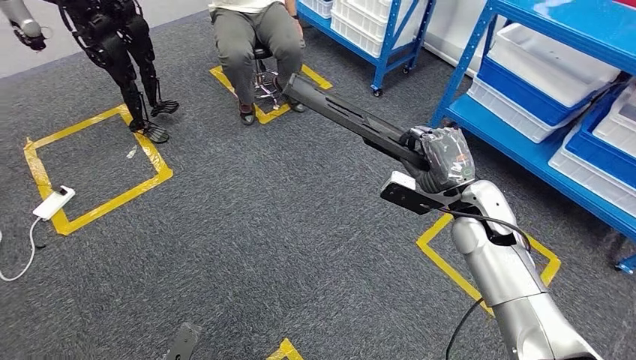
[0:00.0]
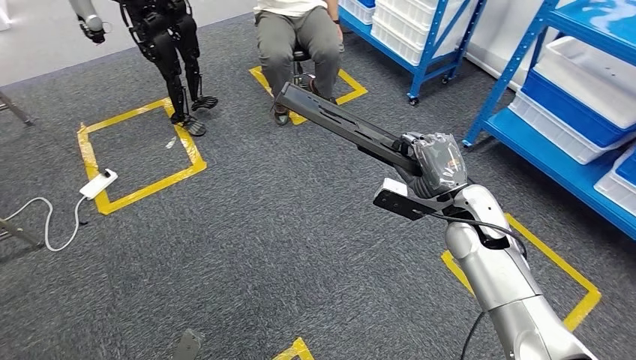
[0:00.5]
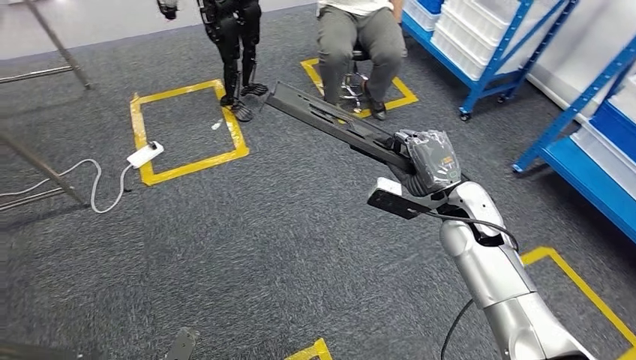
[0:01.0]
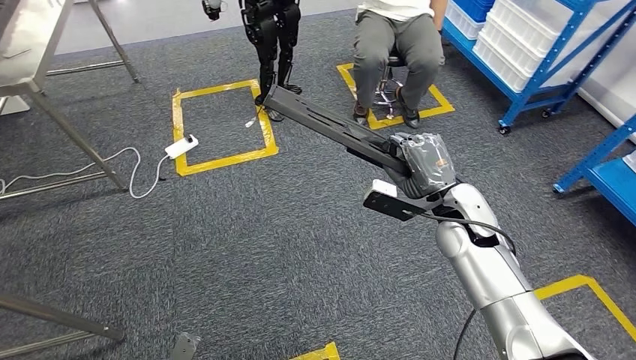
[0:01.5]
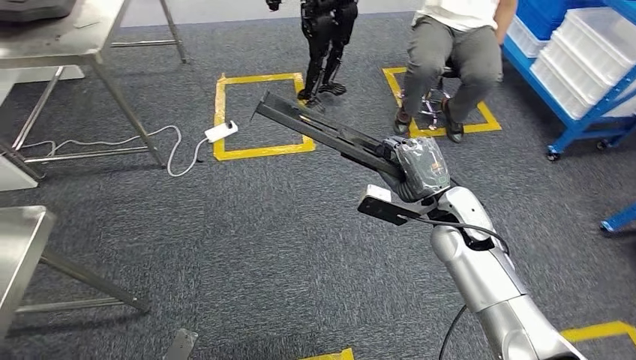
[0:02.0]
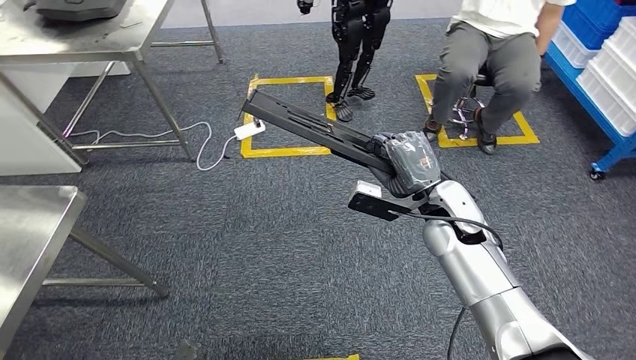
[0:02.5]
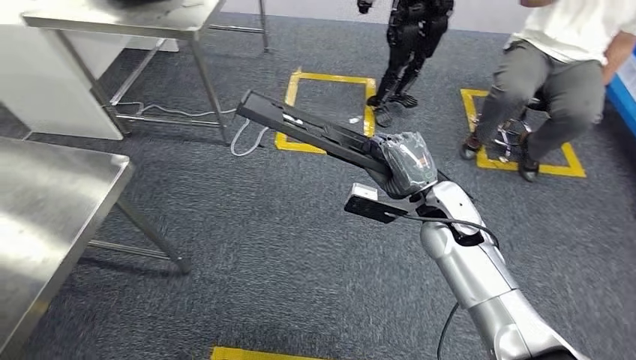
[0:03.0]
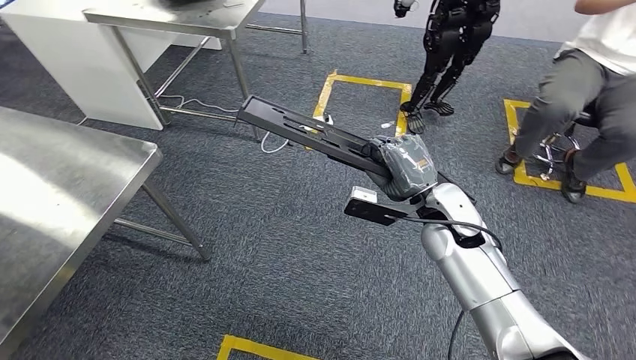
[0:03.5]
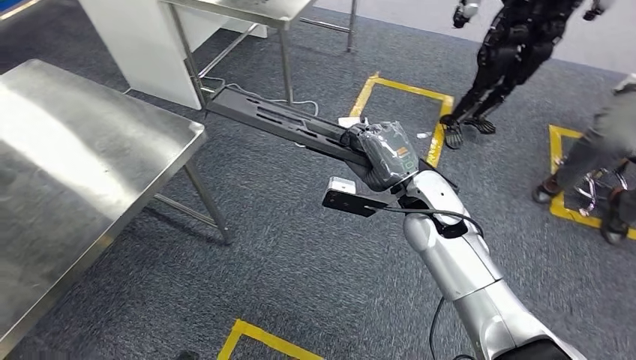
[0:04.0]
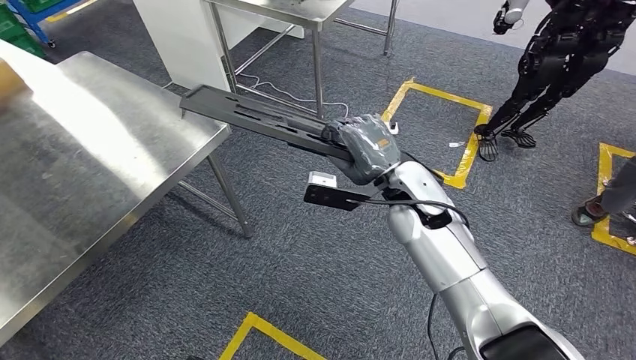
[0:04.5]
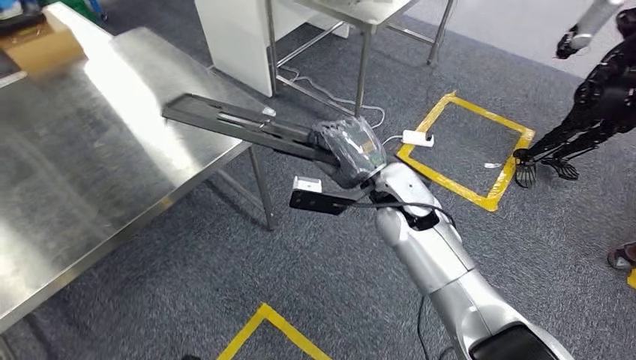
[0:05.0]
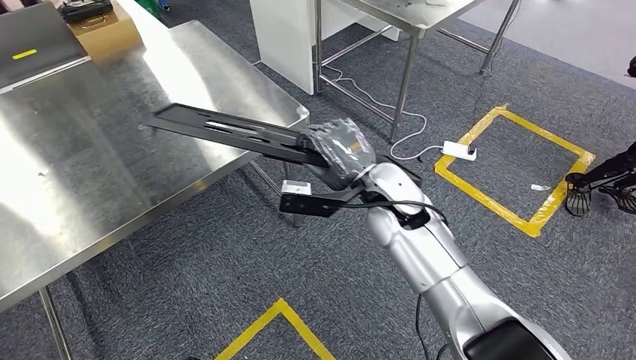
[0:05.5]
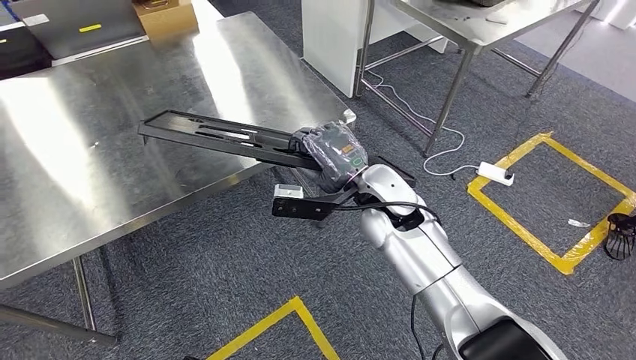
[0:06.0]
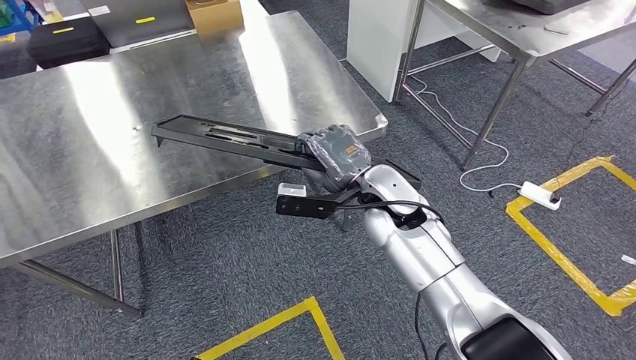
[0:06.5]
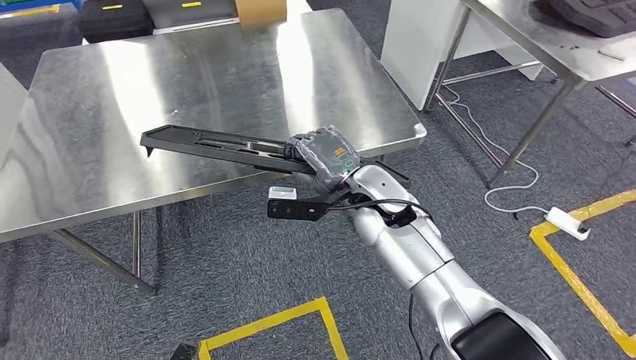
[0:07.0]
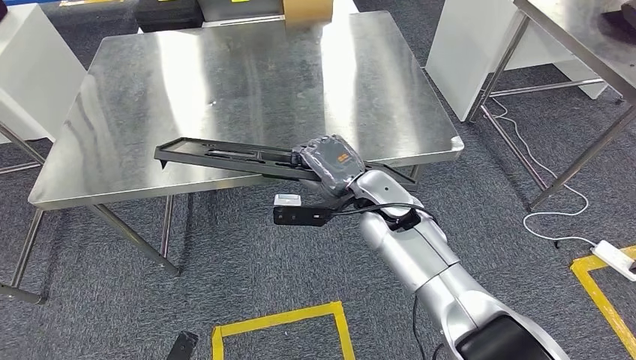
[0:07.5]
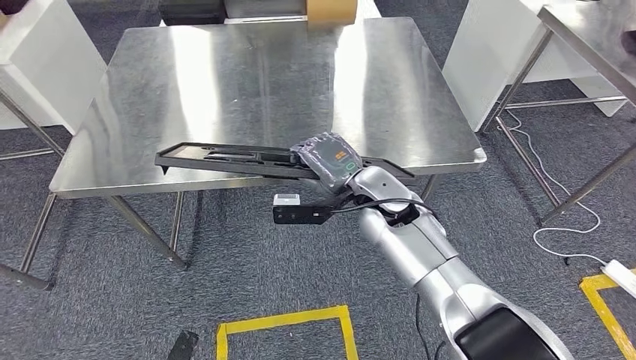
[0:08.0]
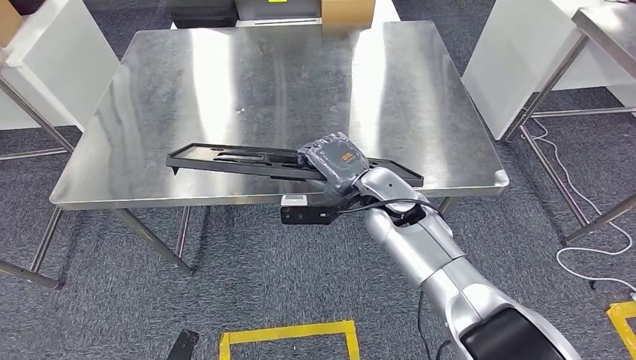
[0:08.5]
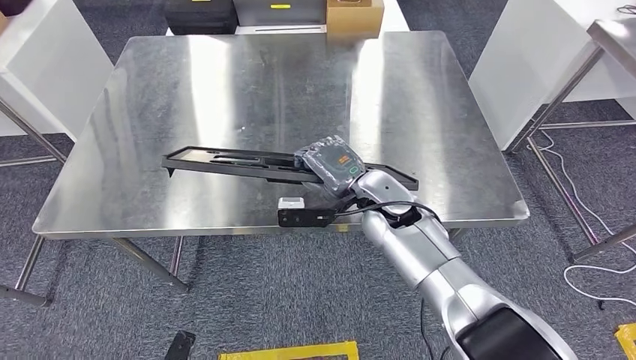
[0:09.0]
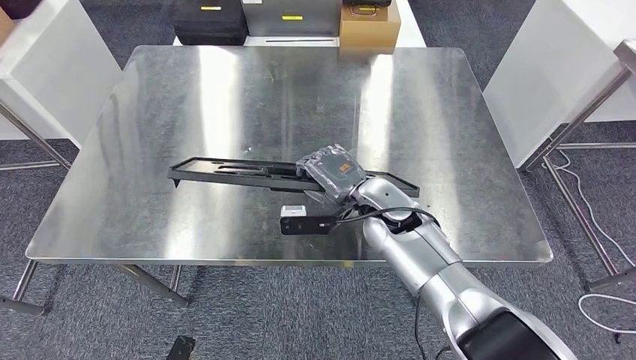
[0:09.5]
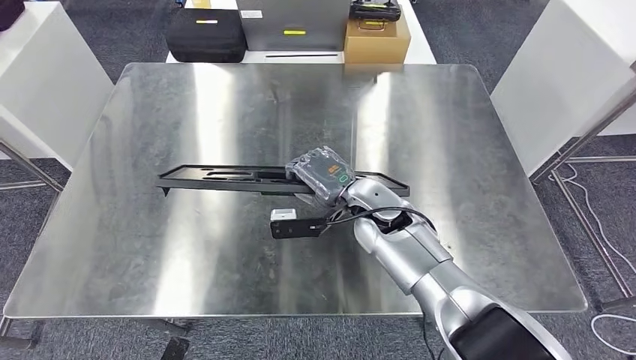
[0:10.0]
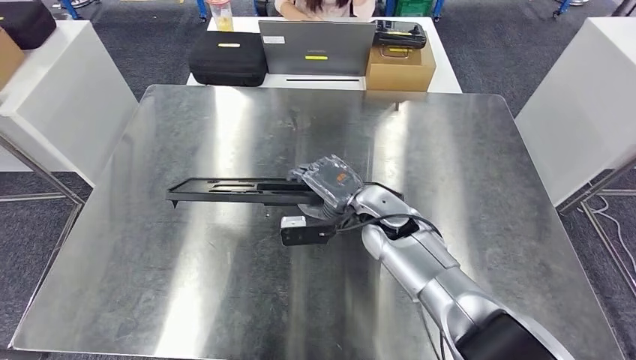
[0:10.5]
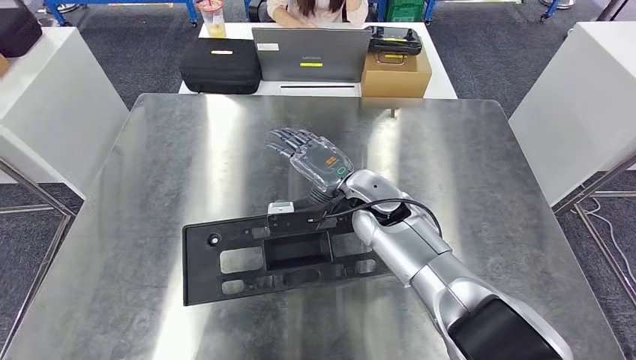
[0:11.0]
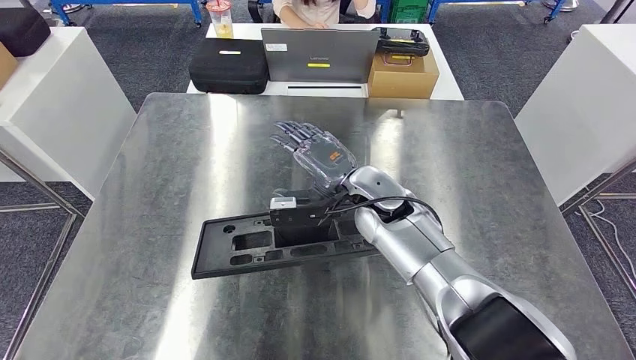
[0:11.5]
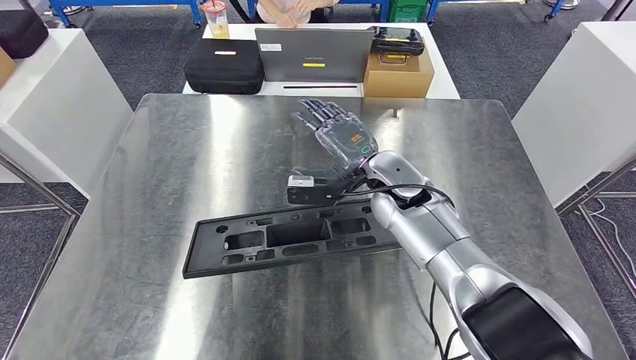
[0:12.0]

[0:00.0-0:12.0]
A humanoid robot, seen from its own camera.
Step, 0:00.0 to 0:05.0: Move the large parts to the workbench.
Step, 0:05.5 to 0:11.5: Insert the large parts into the corresponding slots on the workbench.

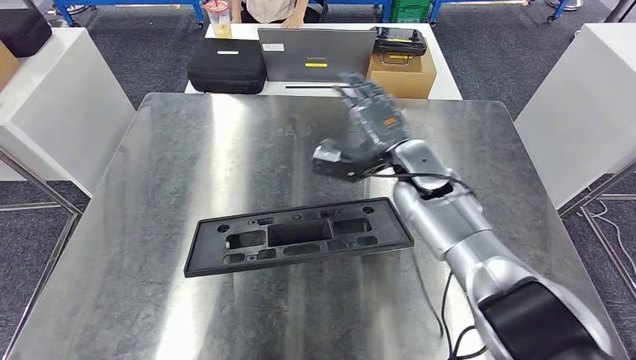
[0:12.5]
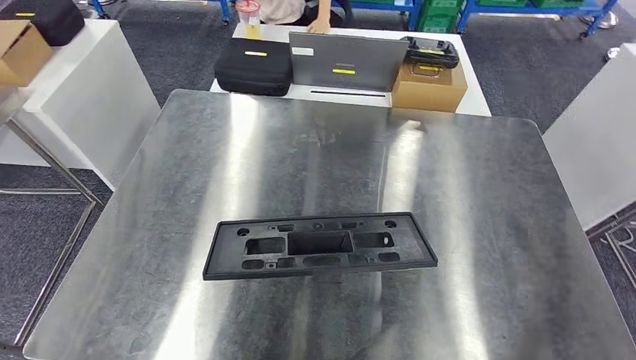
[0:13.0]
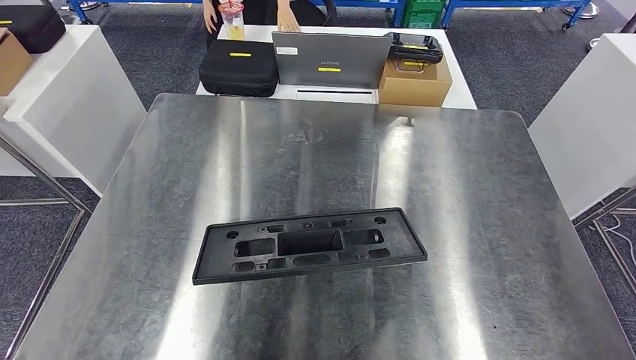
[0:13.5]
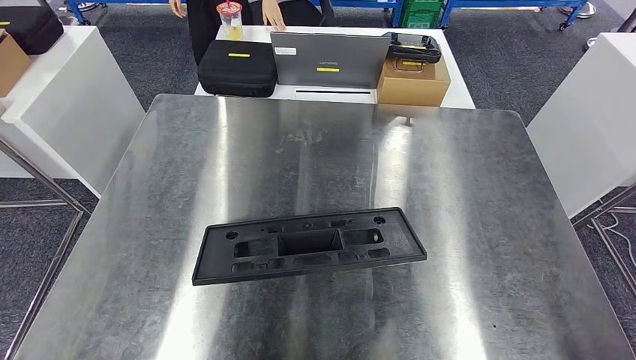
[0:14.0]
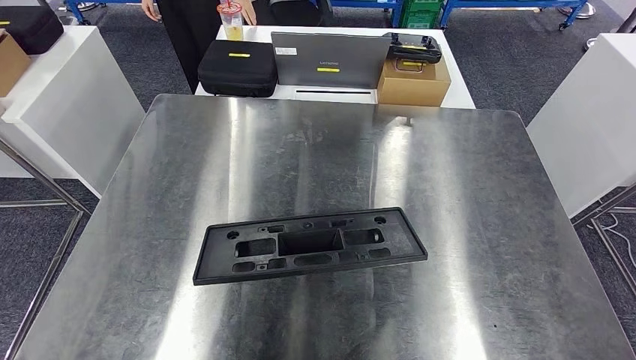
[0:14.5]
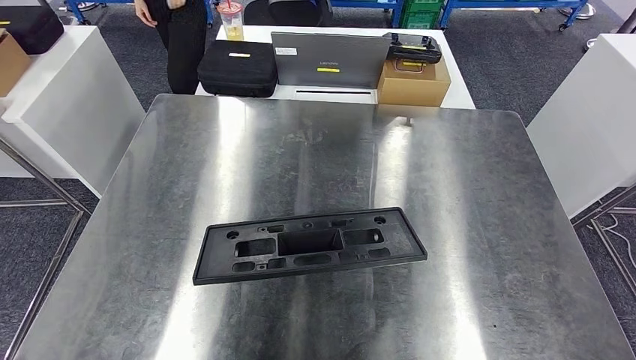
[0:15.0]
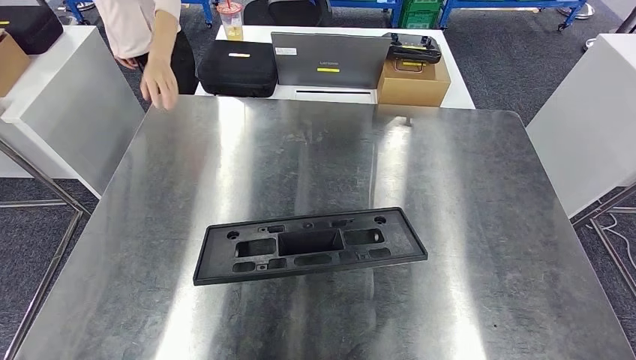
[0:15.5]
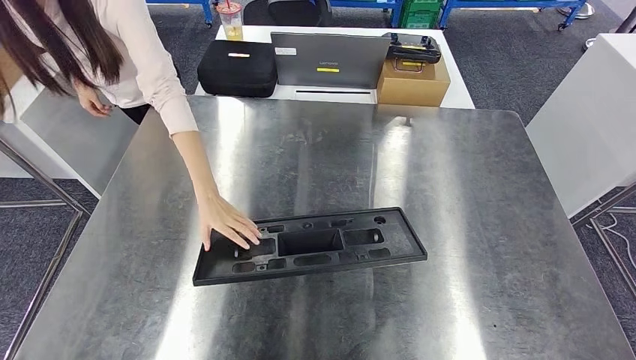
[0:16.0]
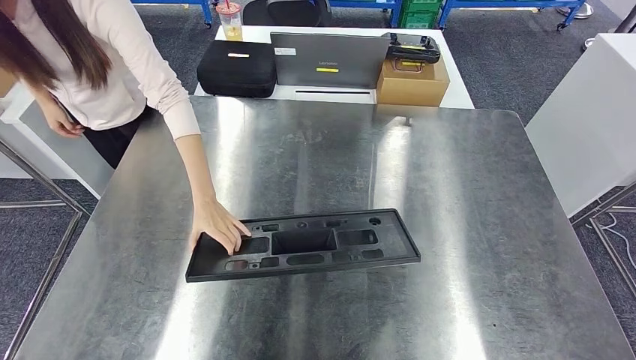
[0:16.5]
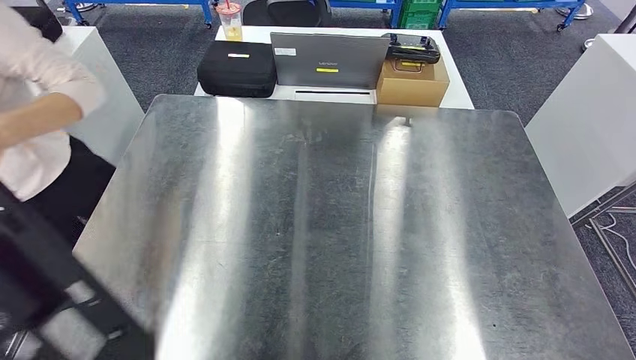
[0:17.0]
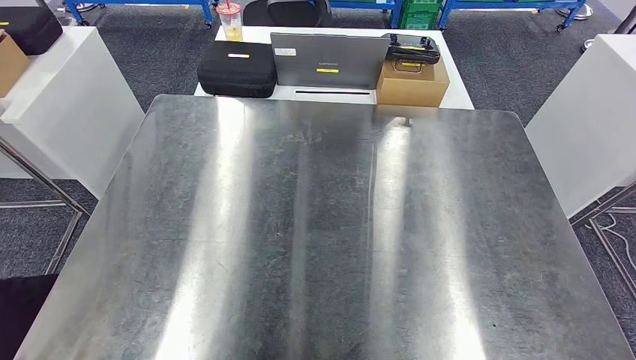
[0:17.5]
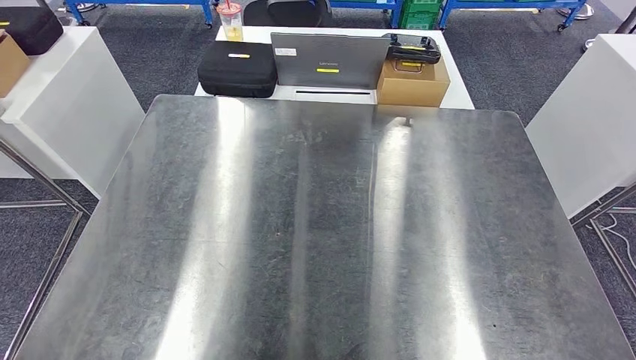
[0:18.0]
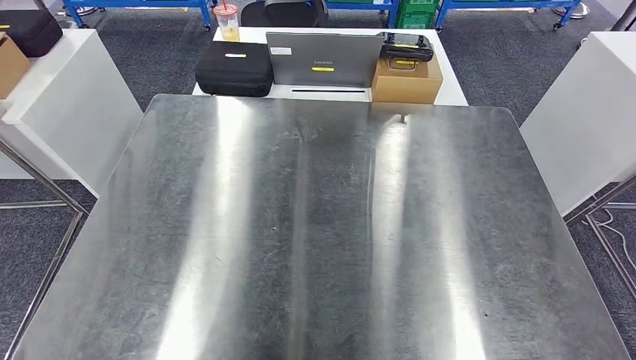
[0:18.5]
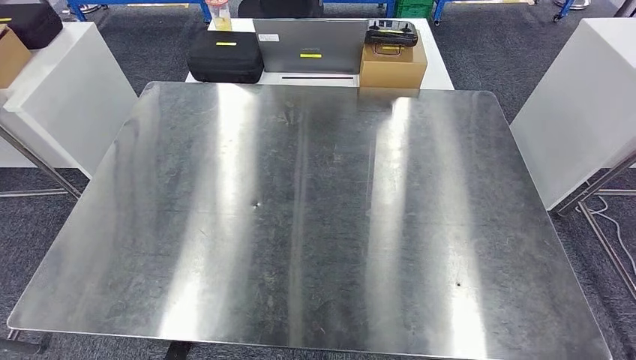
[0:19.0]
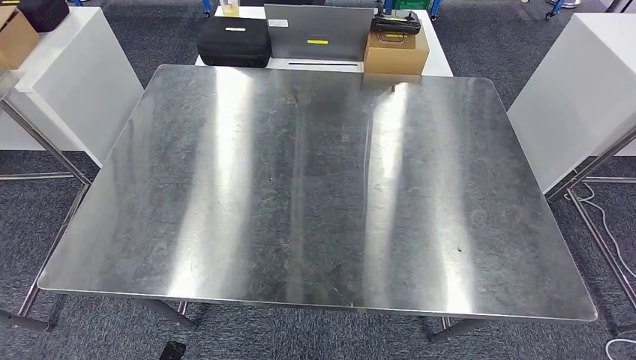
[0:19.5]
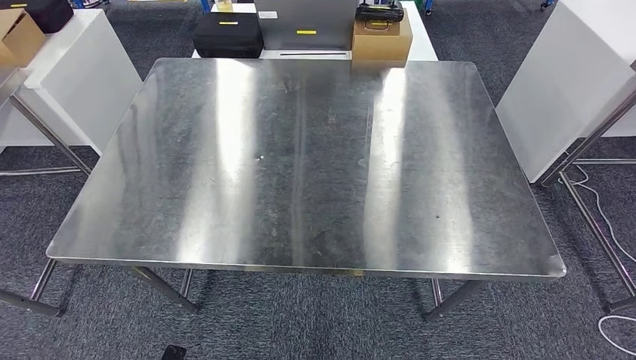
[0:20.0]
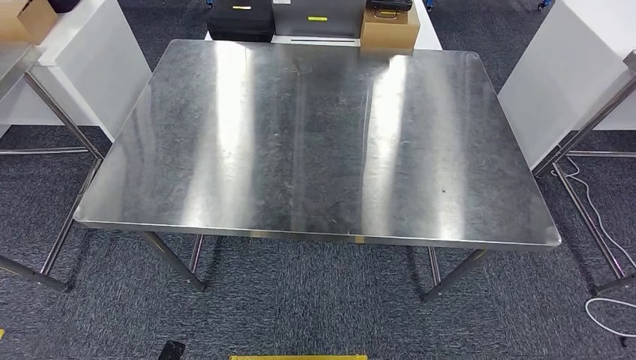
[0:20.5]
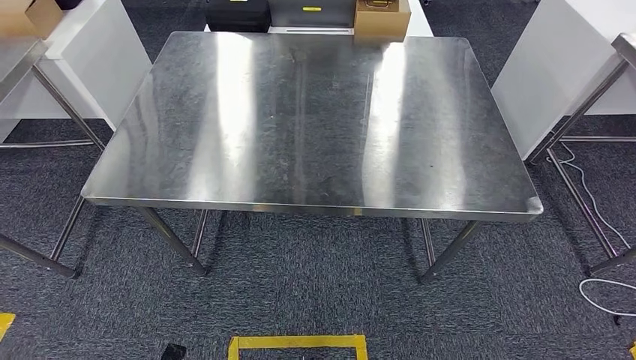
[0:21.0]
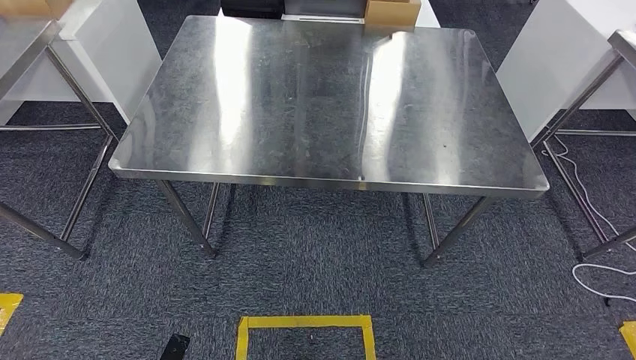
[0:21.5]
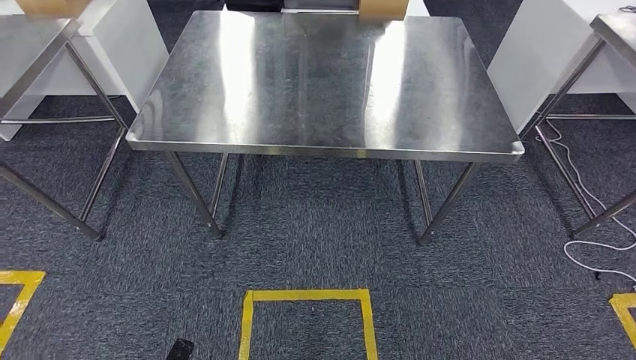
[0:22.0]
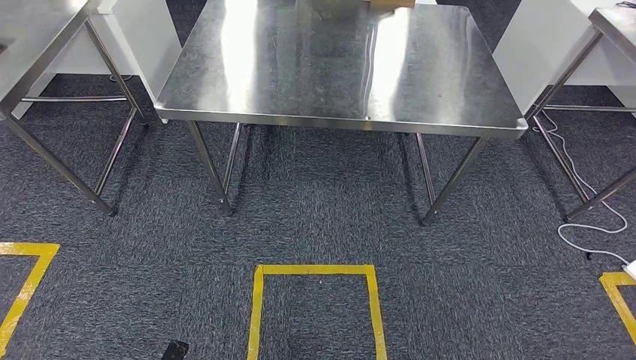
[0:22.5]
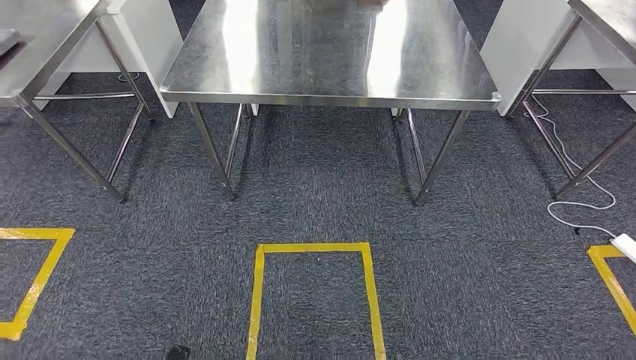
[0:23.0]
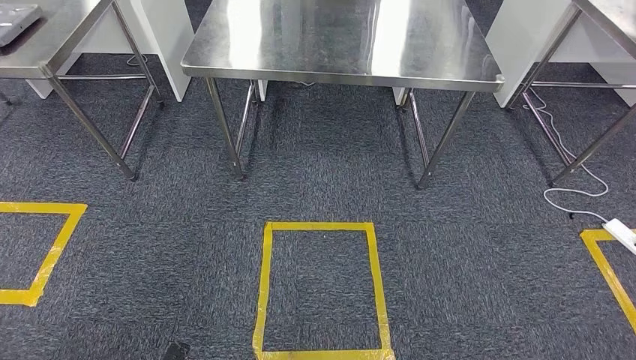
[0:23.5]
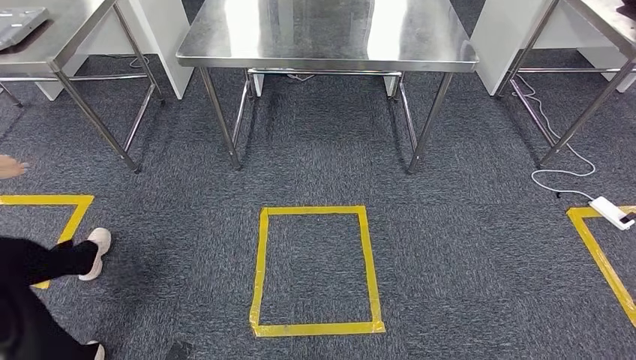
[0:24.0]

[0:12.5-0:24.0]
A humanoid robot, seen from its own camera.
0:14.5 to 0:16.5: The right hand is displaced to the left by approximately 10 cm.